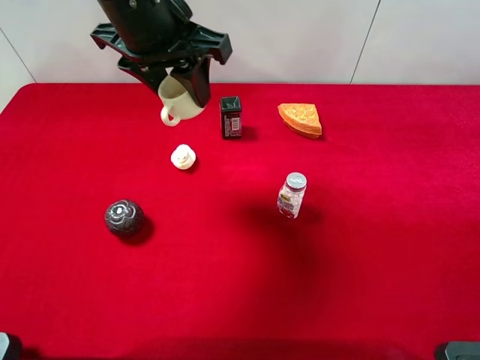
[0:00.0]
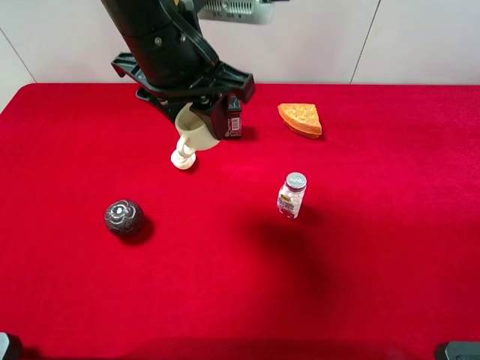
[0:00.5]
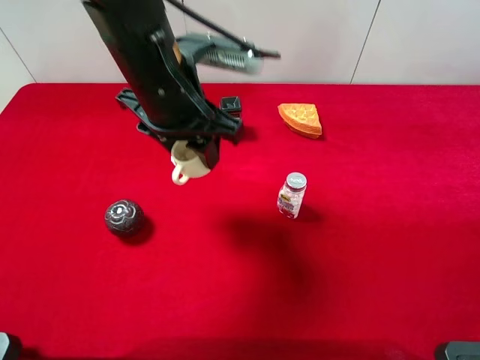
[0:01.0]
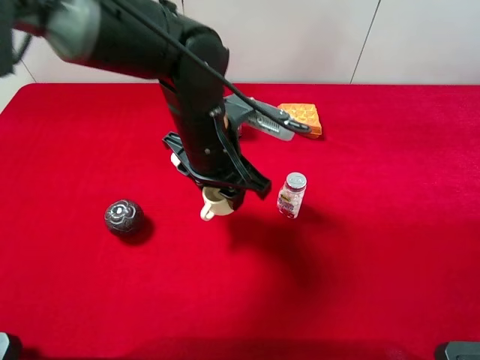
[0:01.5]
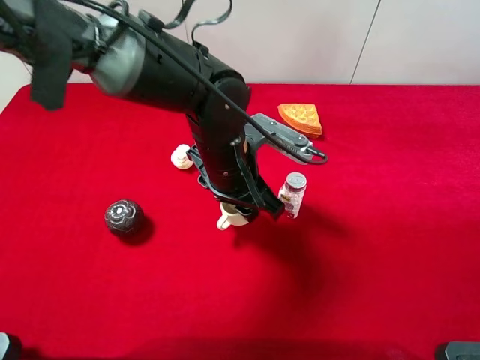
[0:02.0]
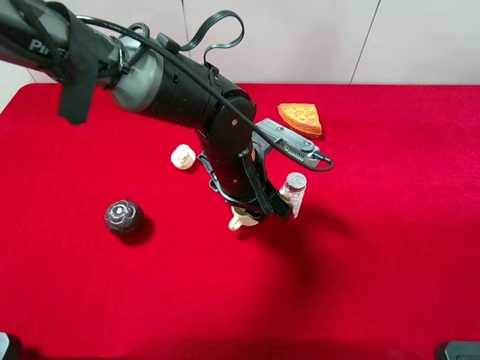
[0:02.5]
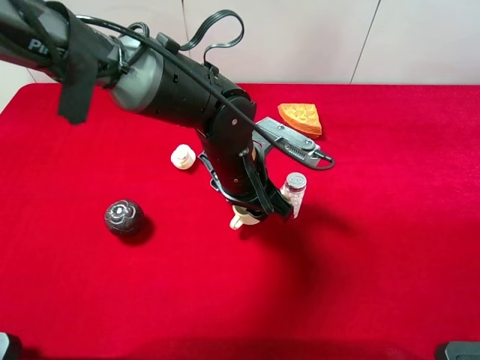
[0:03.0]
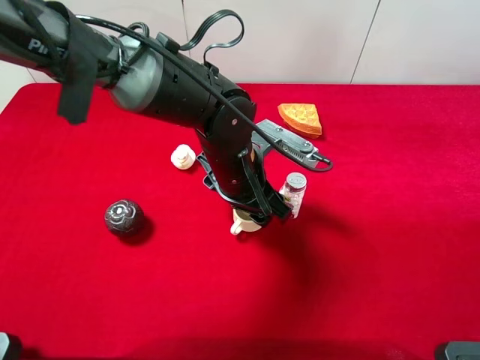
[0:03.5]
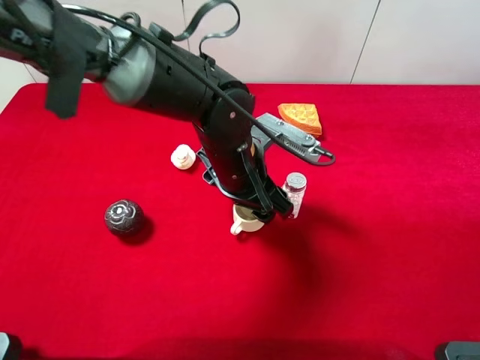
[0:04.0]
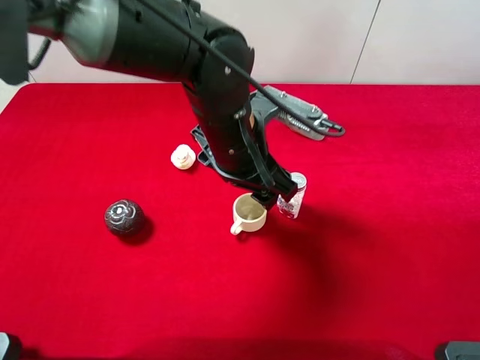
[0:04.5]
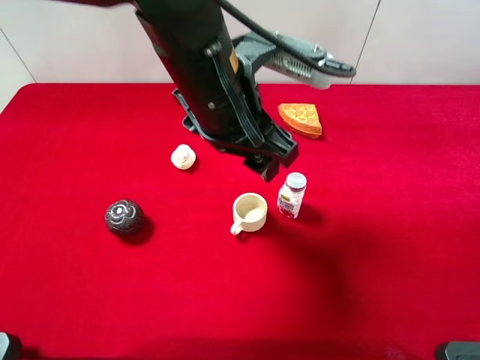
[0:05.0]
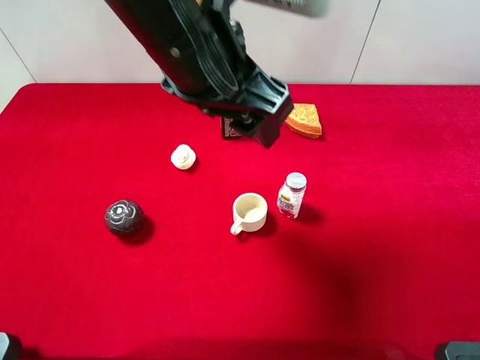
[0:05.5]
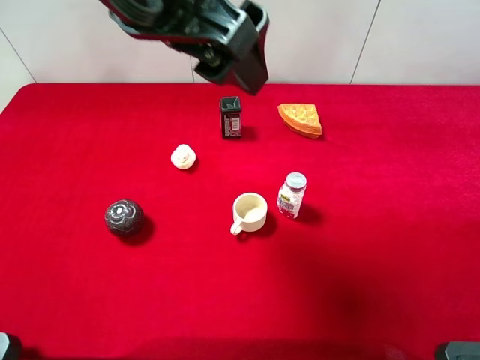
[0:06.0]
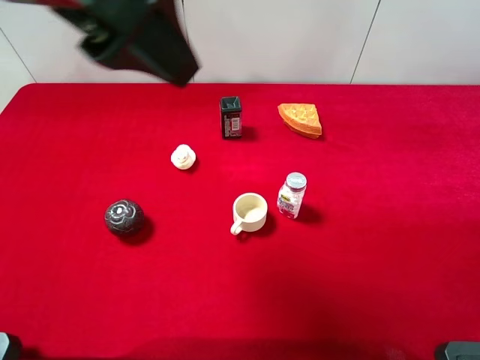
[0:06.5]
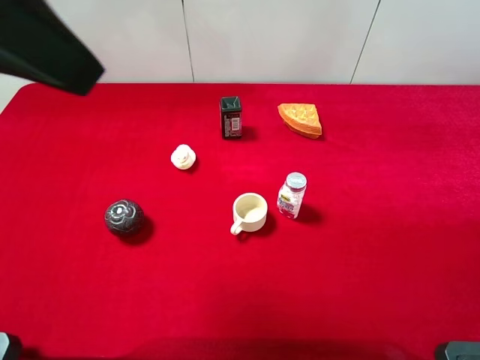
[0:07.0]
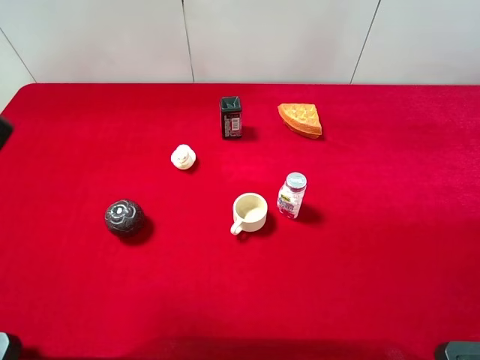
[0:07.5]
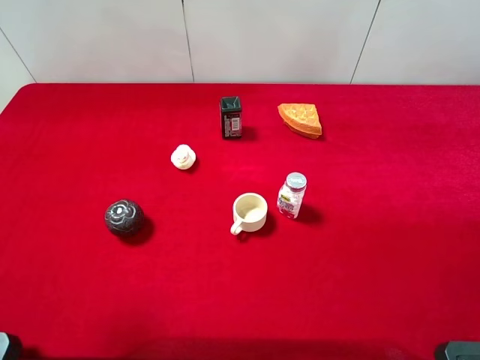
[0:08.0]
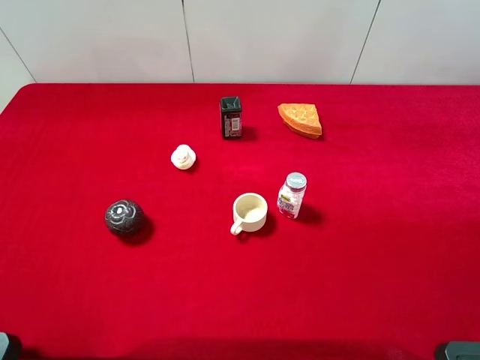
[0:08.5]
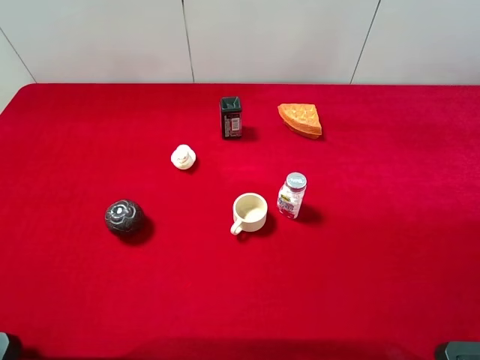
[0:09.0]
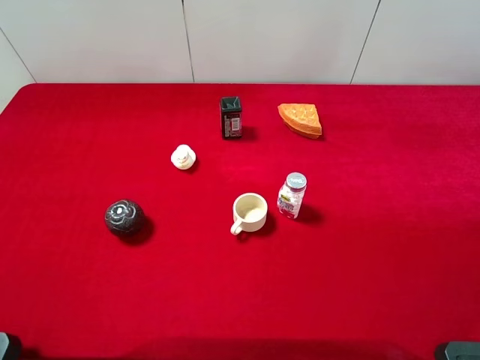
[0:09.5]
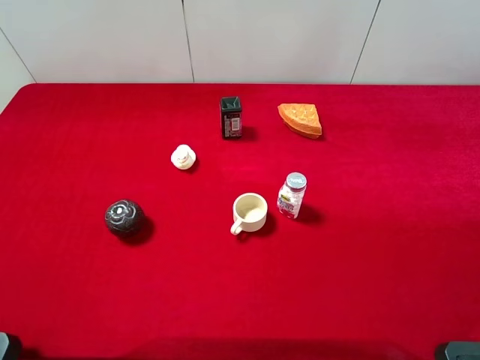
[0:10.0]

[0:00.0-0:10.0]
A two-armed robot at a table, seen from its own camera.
Task of the whole recording: the gripper move the object.
Step, 0.0 to 4.5 s: Place the tea cup on the table with the left gripper.
0.0 to 2.0 s: The left gripper moves downward and to the right, some 20 cm.
2.0 to 4.0 s: The left gripper opens up.
4.0 to 6.0 s: The left gripper is displaced upward by about 25 cm, and opens its fingers.
6.0 to 8.0 s: The left gripper heads to the left and backward, covering roughly 20 cm.

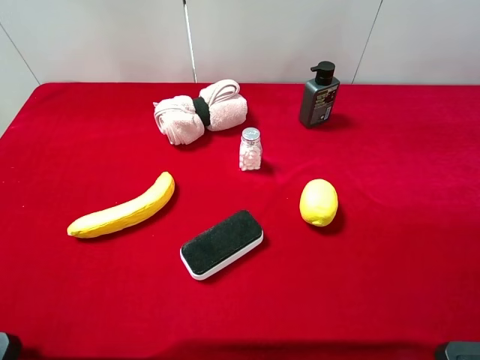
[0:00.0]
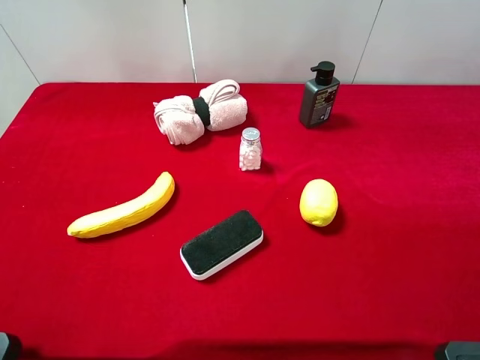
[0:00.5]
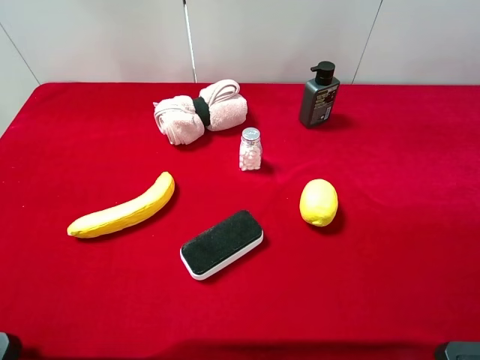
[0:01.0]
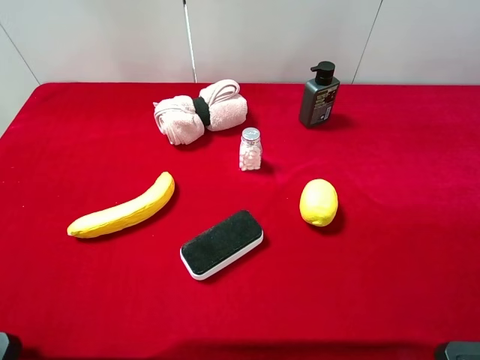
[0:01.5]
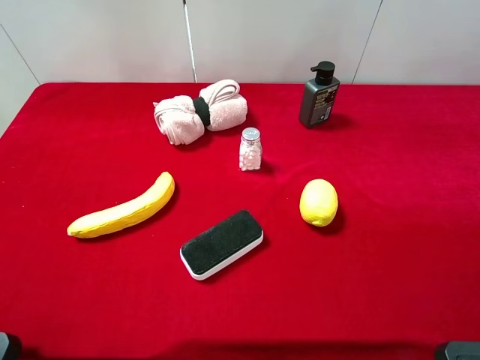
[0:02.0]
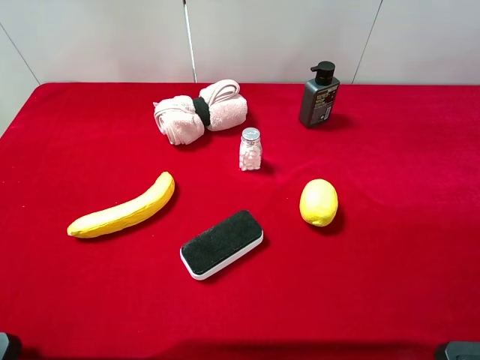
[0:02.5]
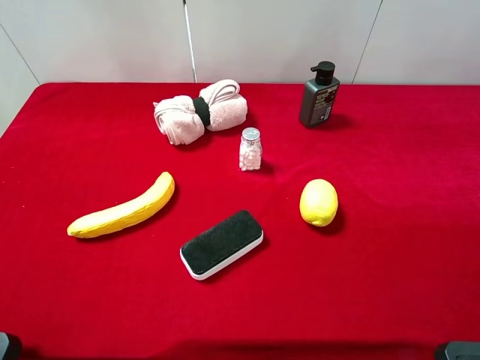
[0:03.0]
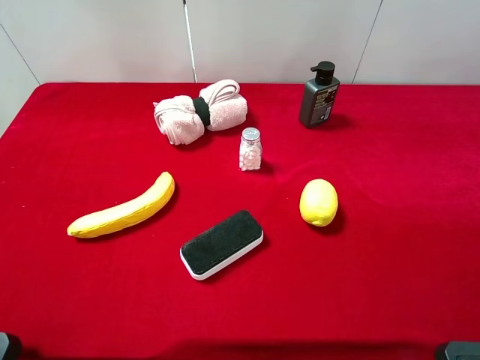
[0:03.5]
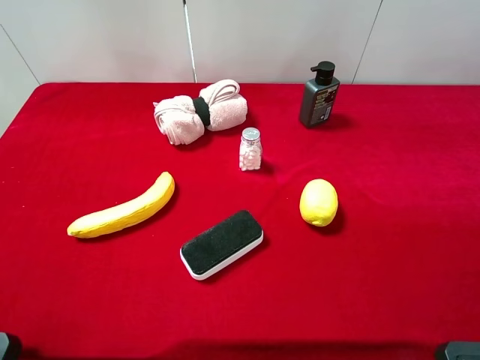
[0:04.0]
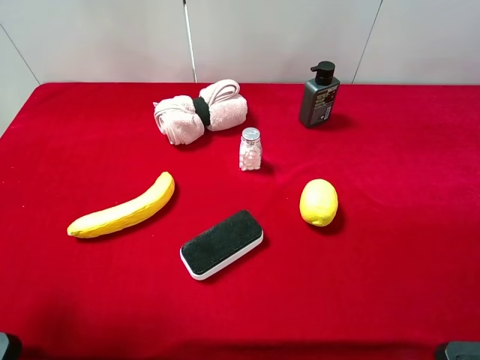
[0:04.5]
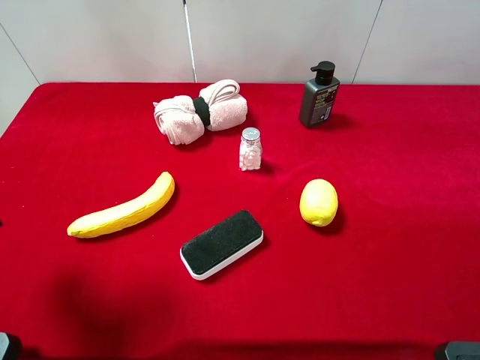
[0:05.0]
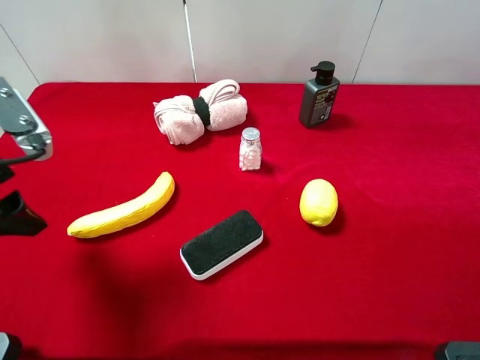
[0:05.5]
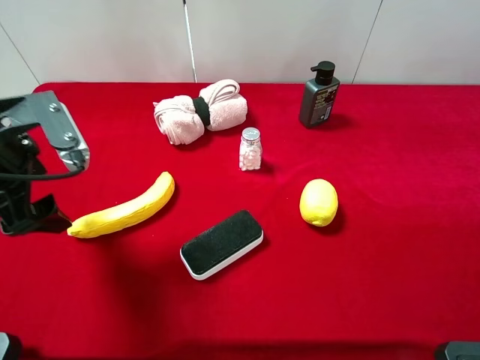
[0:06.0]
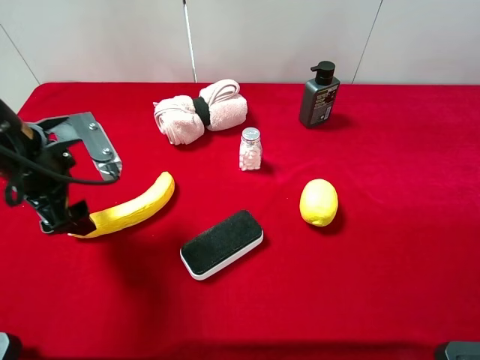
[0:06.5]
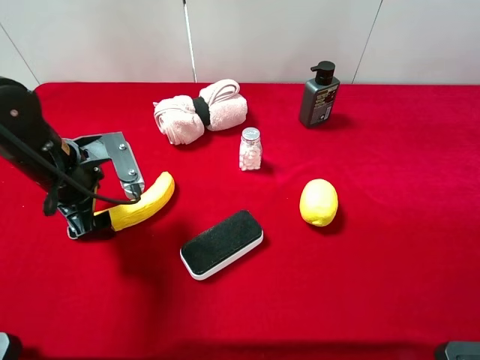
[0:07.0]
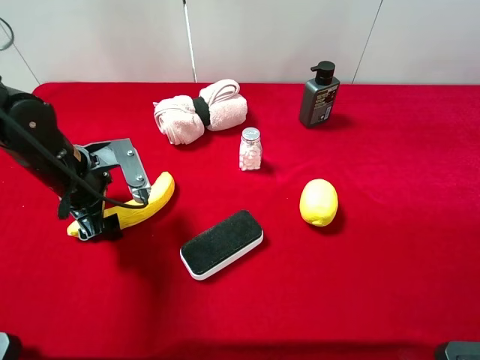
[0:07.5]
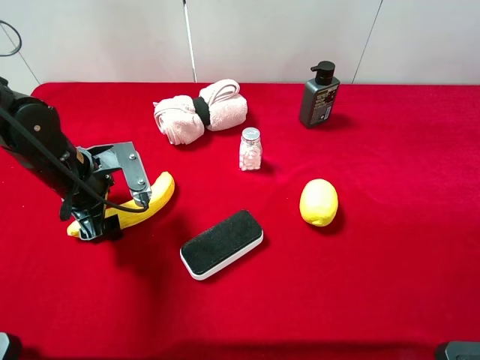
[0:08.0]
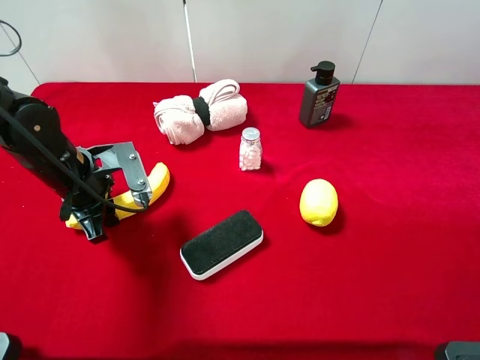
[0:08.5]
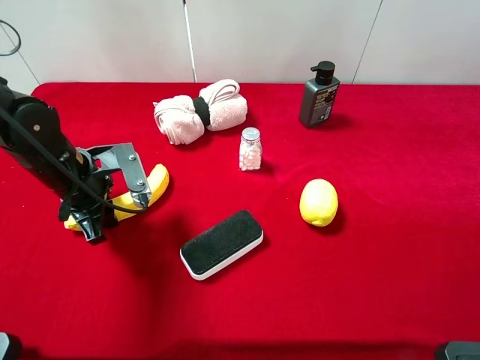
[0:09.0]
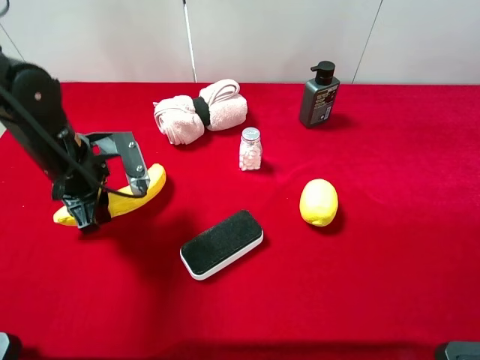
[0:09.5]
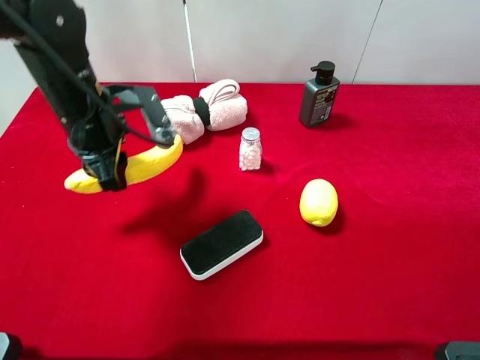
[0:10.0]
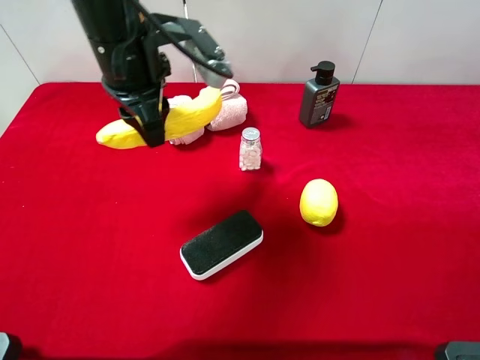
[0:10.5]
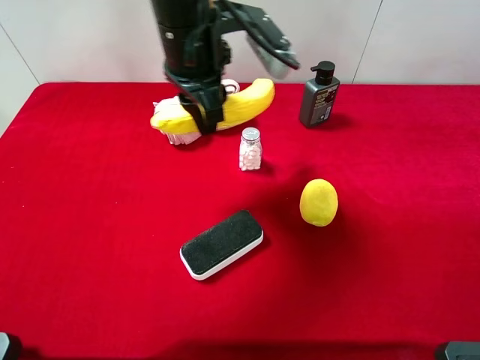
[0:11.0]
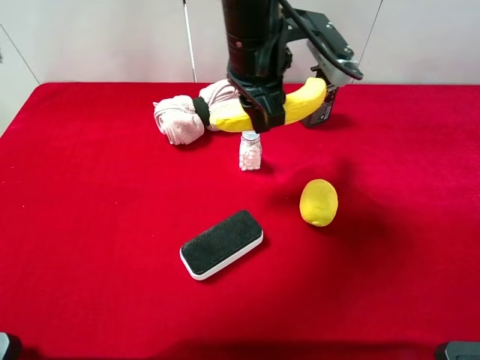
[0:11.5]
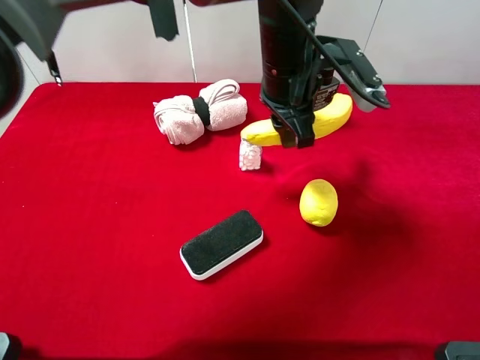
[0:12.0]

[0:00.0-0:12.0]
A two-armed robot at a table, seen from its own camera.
Task of the whole recording: the gripper move the object.
Step, 0.0 to 8.5 s: Grasp the banana with the left gripper.
0.0 to 2.0 s: The two grippers keep their place.
4.0 to 6.0 s: The left gripper goes about 20 cm forward and downward.
6.0 to 8.0 s: The left gripper shifts about 10 cm downward.
8.0 to 10.0 s: The left gripper is displaced upward by approximately 10 cm, and closes.
10.0 to 12.0 s: The left gripper shifts approximately 25 cm to the right.

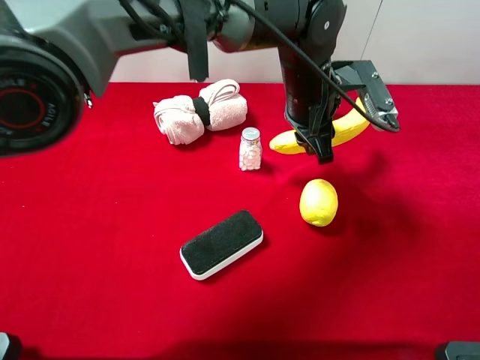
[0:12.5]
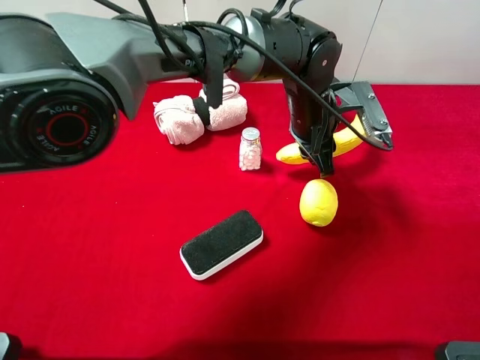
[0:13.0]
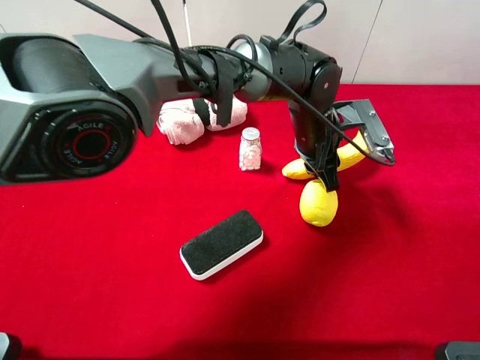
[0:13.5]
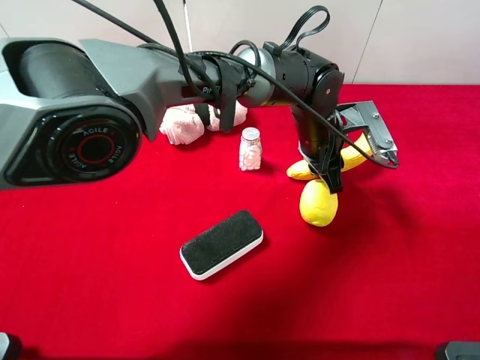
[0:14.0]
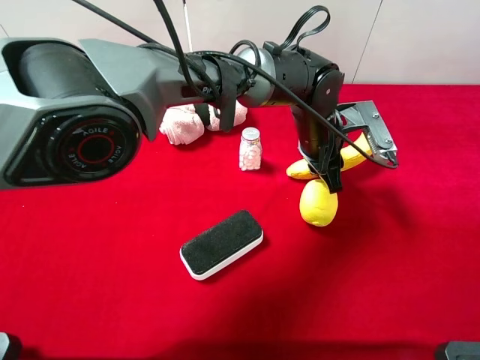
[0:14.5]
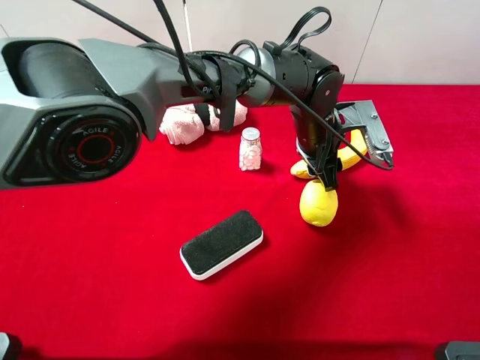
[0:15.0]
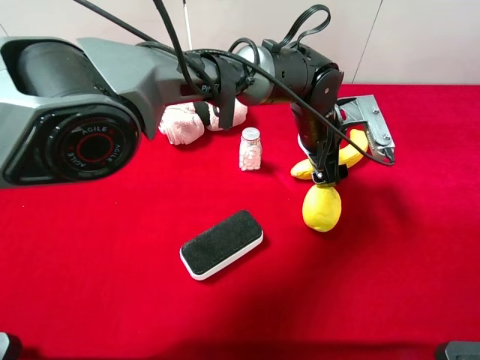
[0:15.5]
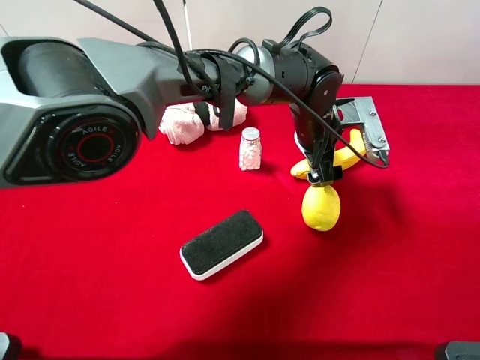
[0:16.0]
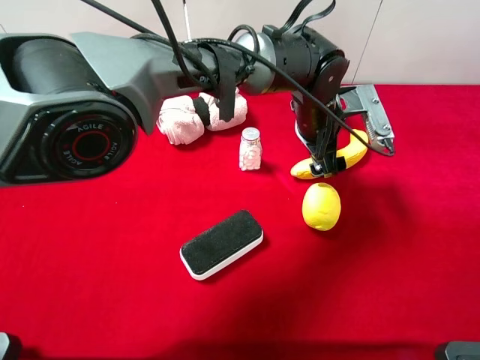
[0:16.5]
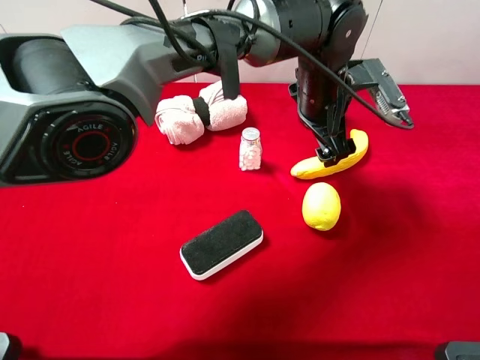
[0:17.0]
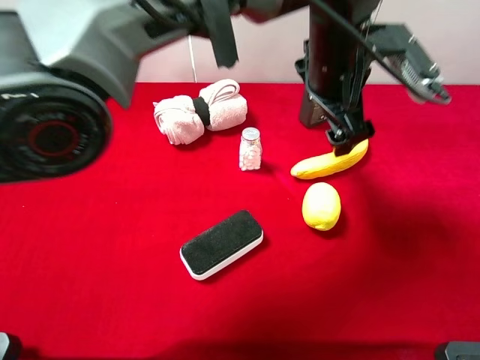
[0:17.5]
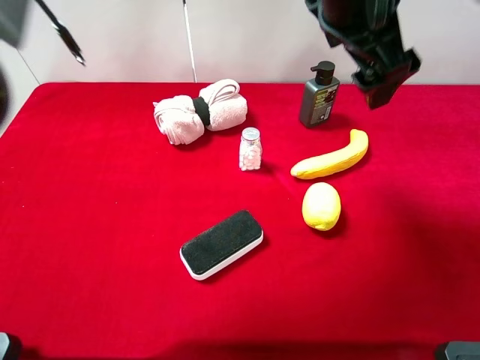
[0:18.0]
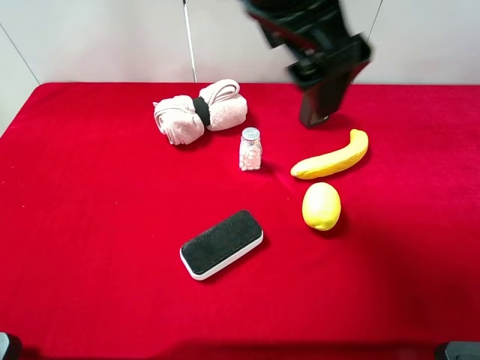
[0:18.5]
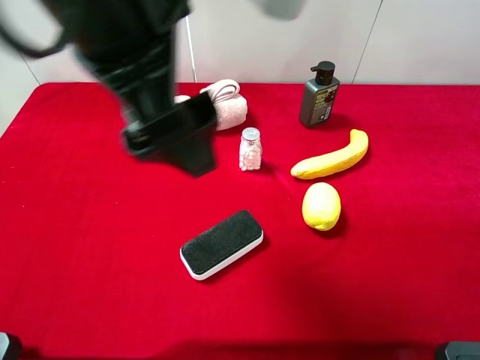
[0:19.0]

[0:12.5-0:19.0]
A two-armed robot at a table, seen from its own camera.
Task of the whole recording: the gripper move the object.
Step, 12.5 to 17.0 s: Place the banana on the table with the left gripper.
12.5 to 14.5 s: The left gripper goes roughly 5 cm downward.
14.5 to 17.0 s: The left gripper goes approximately 5 cm upward, and opens its fingers.
17.0 to 19.0 s: The left gripper travels to the left, upward and backward by roughly 30 cm.
